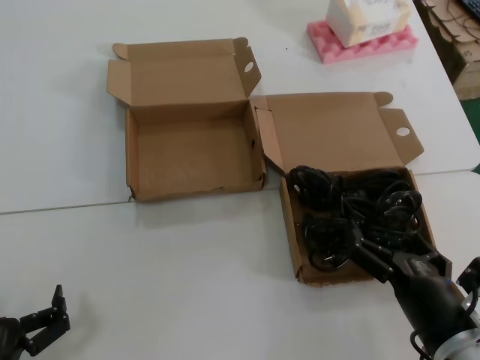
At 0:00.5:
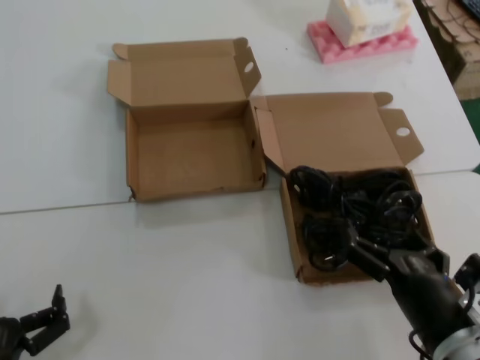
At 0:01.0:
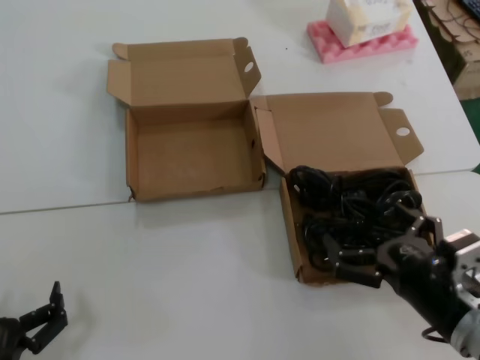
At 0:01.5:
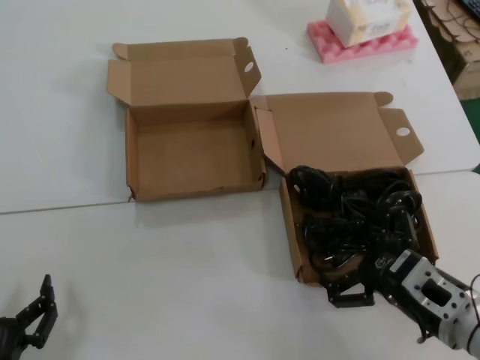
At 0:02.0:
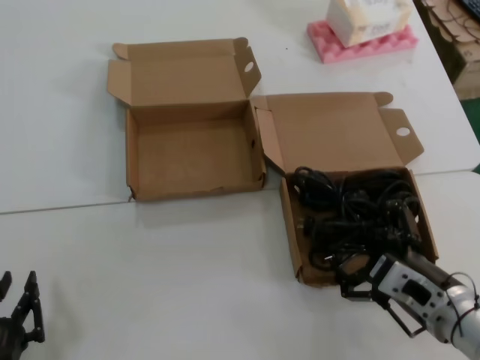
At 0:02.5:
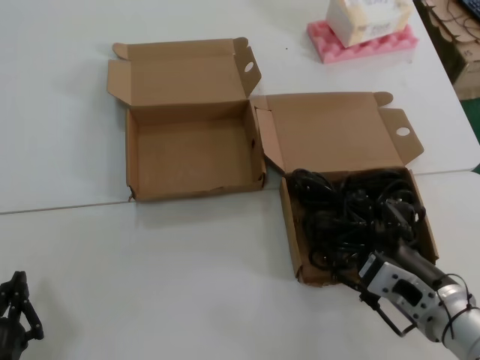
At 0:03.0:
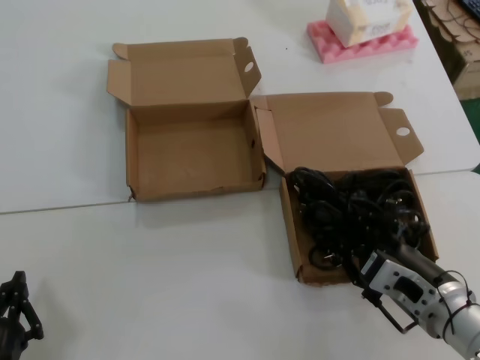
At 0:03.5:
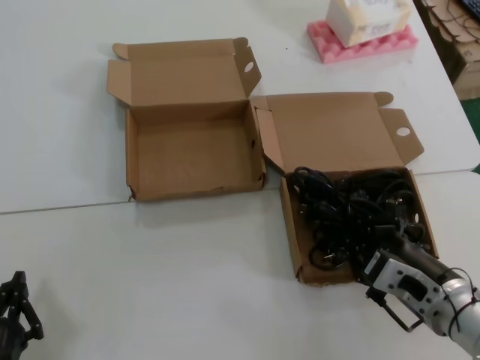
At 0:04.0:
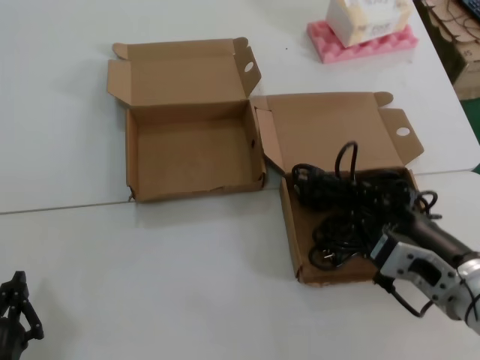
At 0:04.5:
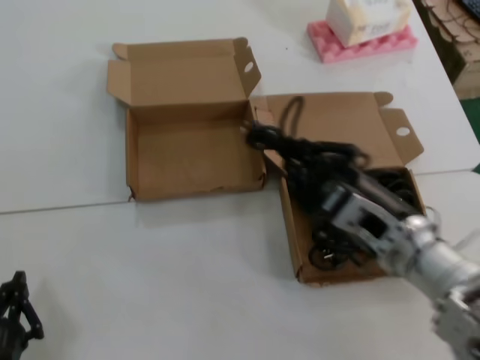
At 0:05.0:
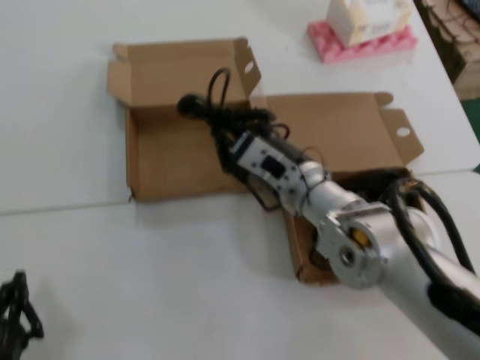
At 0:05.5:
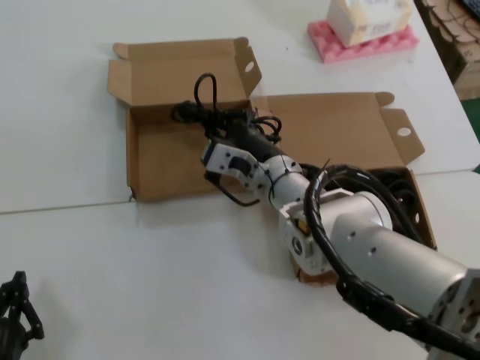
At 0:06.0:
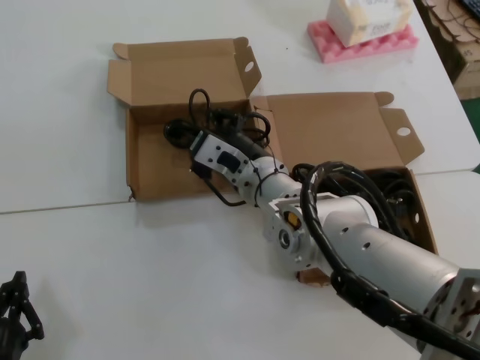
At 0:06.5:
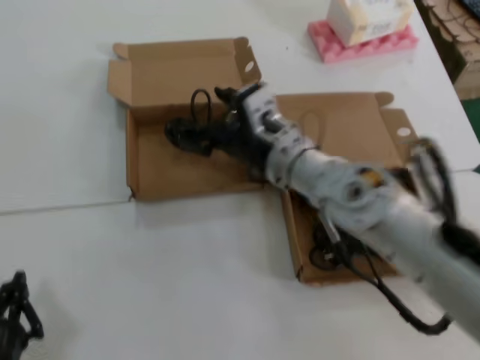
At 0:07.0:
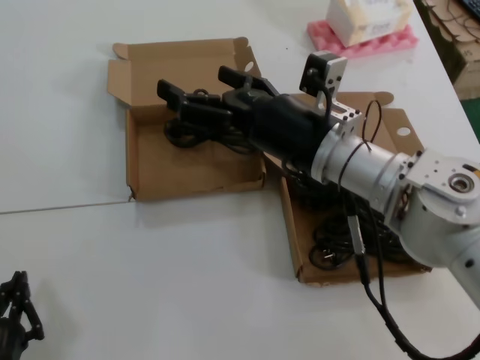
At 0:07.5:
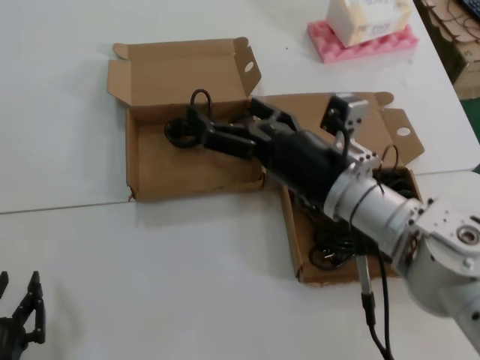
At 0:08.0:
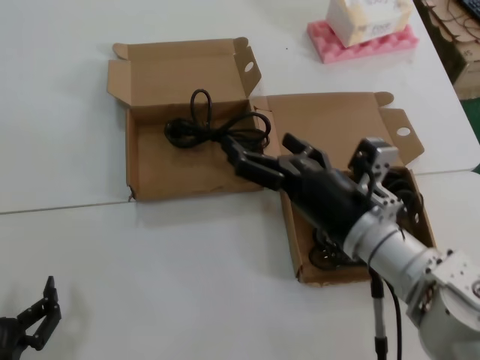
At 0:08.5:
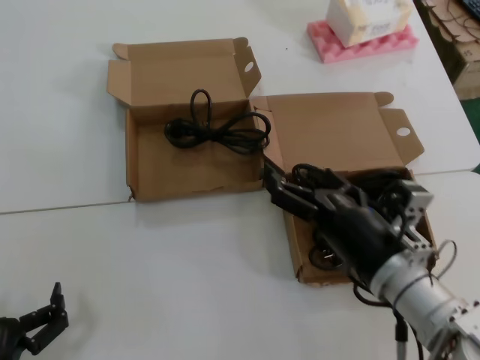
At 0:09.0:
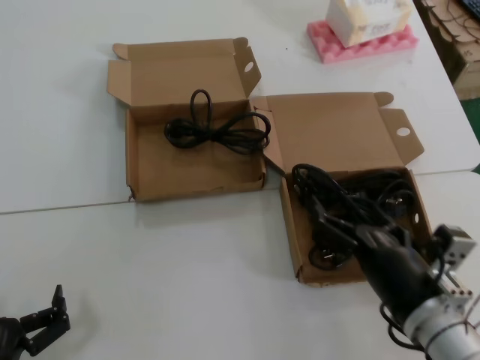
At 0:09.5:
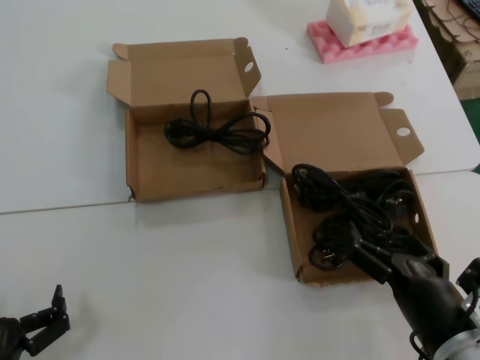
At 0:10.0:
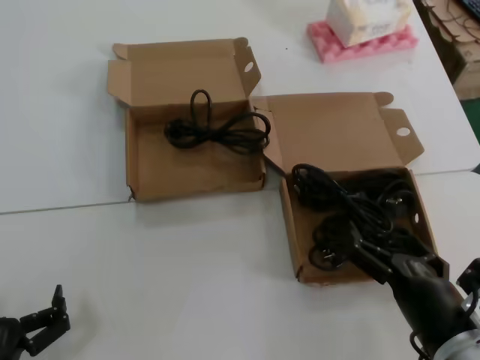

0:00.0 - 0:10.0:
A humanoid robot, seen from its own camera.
Task of the whole recording: Pick up the power cord from the box containing it and place it in another box.
Step, 0:00.0 - 0:03.5: Grasp the data cable.
Step, 0:04.0 - 0:06.0: Place the data cable in the another box.
0:00.0 - 0:02.0: The right hand moves forward, roughly 5 cm.
0:02.0 - 0:04.0: The right hand shifts roughly 5 cm upward.
0:04.0 - 0:06.0: The right hand heads forward and to the left, covering about 30 cm.
0:06.0 - 0:08.0: The right hand travels backward and to the right by roughly 15 cm.
0:08.0 - 0:10.0: The right hand heads backward, downward and to the right, covering about 15 cm.
